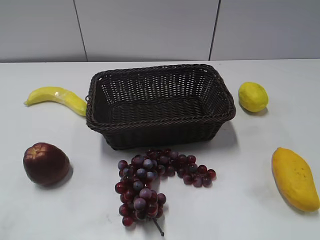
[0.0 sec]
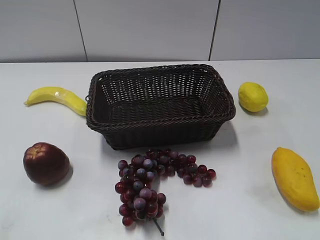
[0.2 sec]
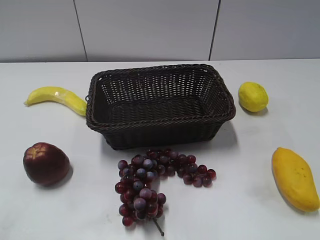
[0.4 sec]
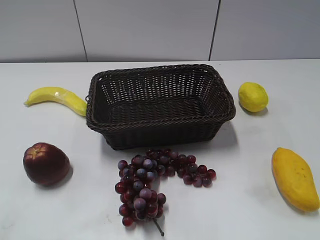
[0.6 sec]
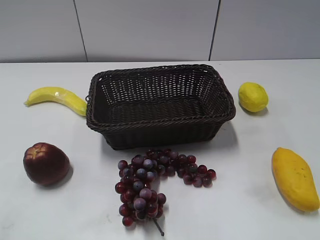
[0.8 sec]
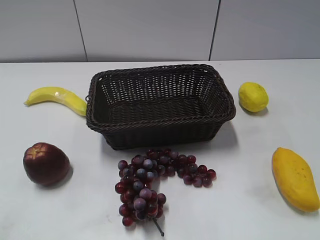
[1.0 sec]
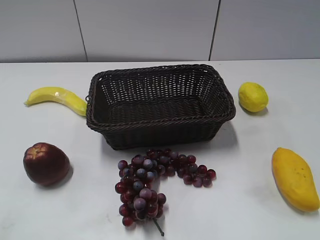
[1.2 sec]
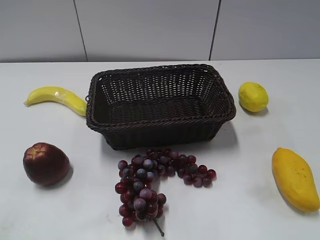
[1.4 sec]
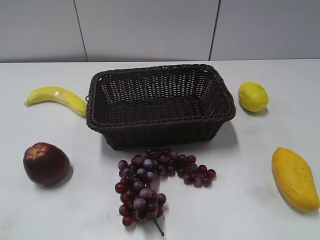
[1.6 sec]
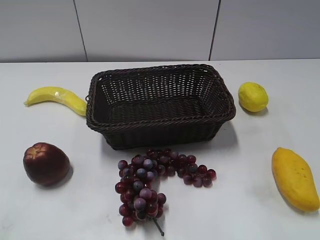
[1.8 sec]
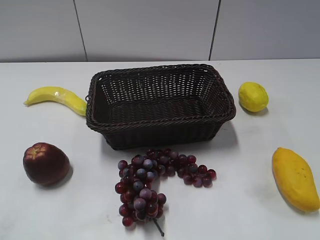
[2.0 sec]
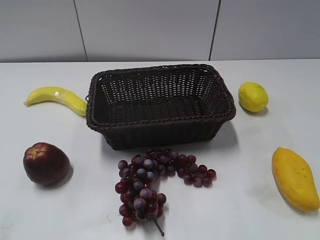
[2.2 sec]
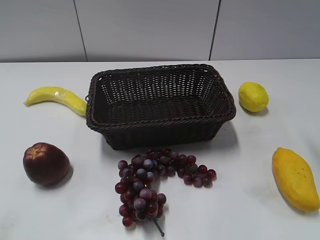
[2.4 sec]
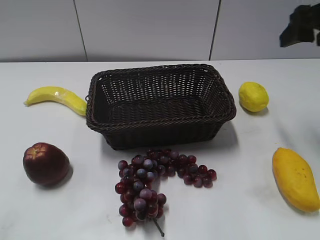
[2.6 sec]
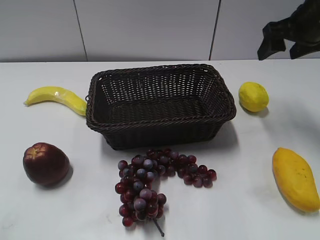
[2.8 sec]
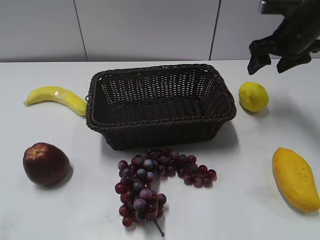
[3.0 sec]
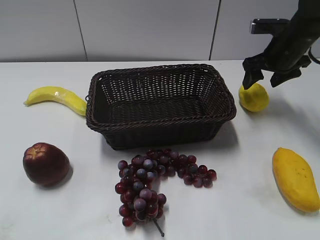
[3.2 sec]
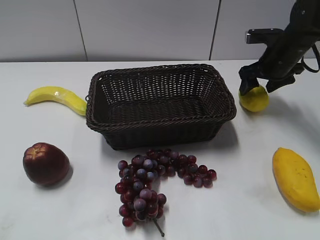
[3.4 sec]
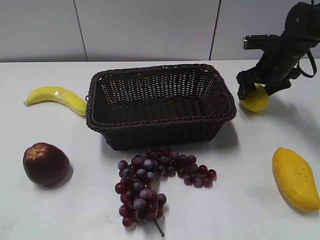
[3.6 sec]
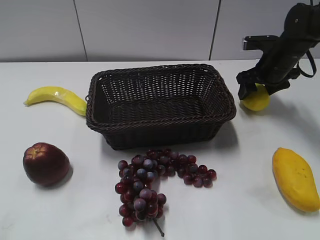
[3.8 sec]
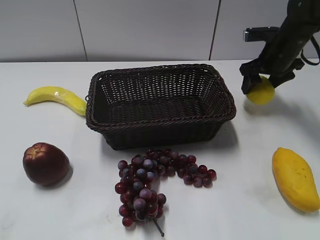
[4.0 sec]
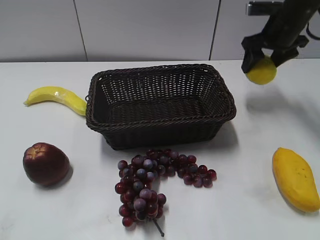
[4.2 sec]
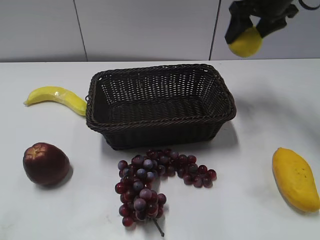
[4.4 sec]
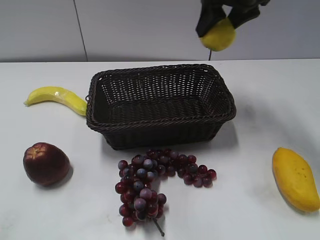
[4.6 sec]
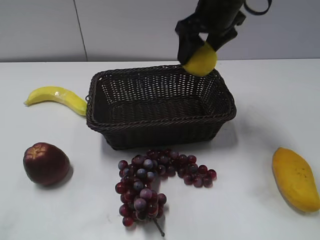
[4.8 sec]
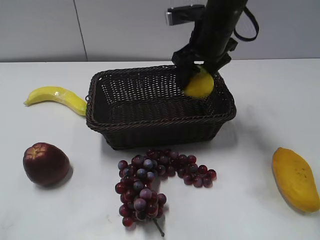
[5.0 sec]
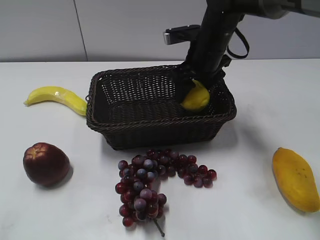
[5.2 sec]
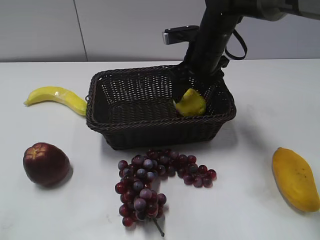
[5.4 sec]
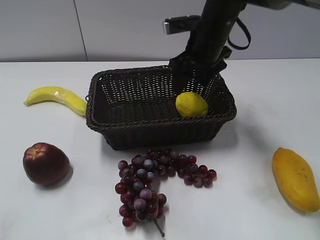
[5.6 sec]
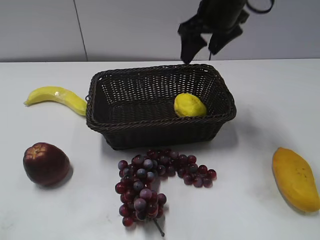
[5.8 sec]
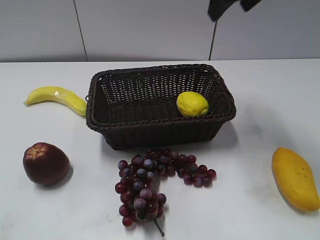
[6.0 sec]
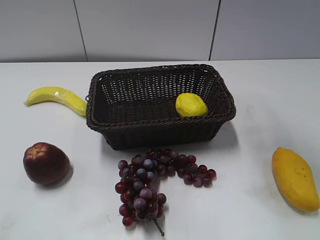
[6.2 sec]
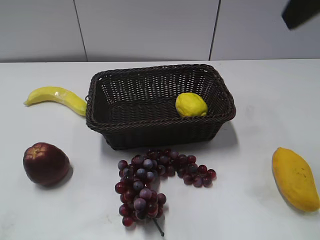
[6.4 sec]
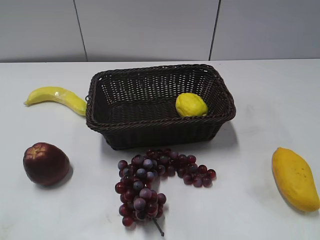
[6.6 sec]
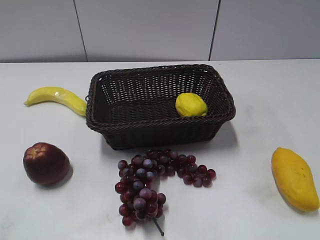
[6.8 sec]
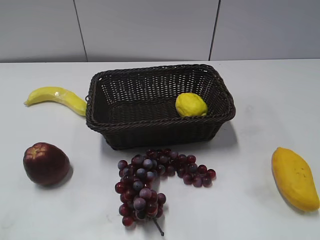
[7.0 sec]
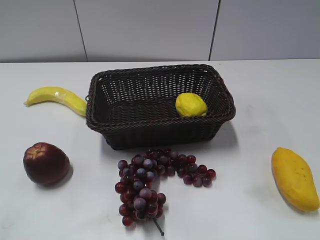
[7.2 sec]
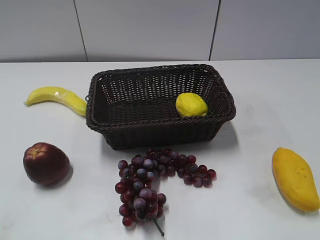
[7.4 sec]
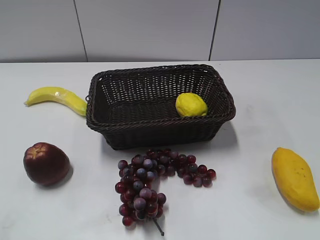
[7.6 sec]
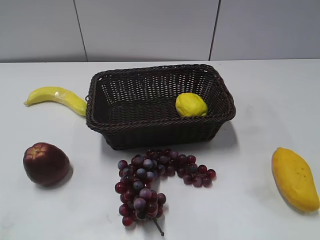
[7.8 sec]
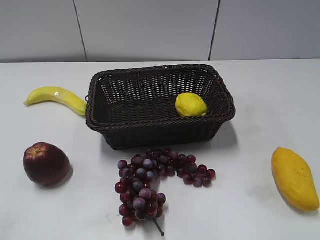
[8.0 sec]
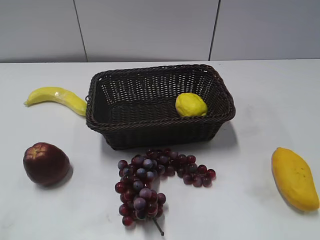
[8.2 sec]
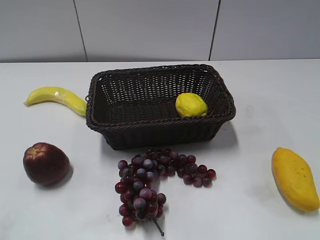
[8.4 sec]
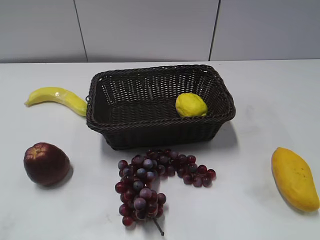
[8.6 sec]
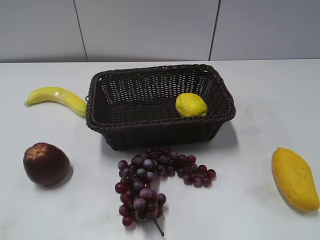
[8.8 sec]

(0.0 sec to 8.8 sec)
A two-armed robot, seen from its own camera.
Step, 2.6 sec - 3.6 sec: Grasp the lemon with right gripper.
Step, 4.0 sec - 5.6 sec: Place the lemon in the basket with right gripper.
1.4 sec - 3.0 sec: The right gripper shifts some 40 cm forward.
3.0 sec - 4.4 sec: The right gripper shifts approximately 10 cm upward and to the left.
4.4 sec - 5.8 sec: The right gripper moves to the left and backward, roughly 10 cm, and goes downward and returns, some 10 cm each way.
5.8 sec - 7.4 sec: The right gripper moves backward and to the right, some 40 cm.
